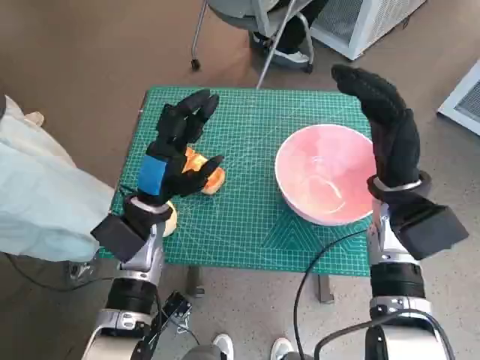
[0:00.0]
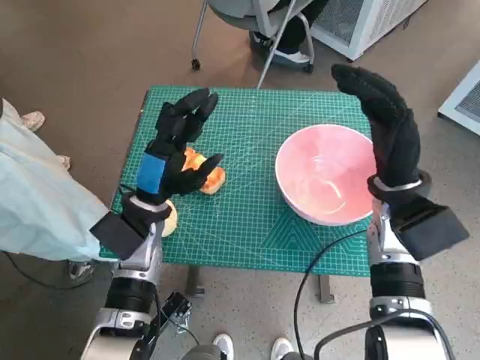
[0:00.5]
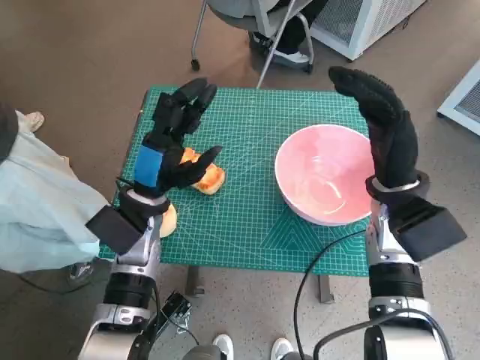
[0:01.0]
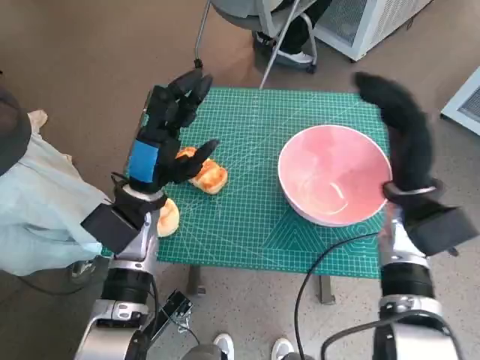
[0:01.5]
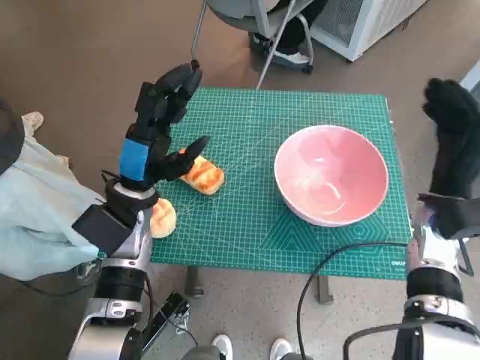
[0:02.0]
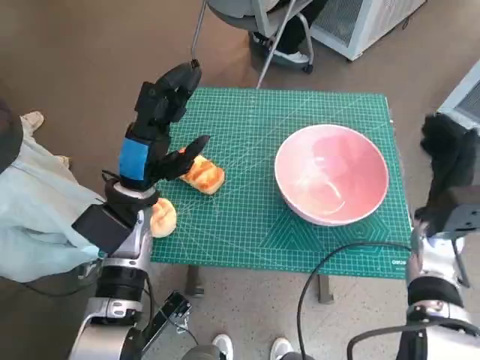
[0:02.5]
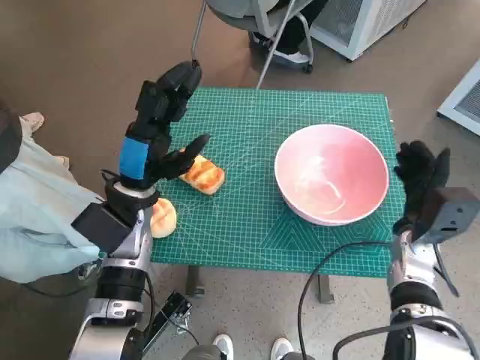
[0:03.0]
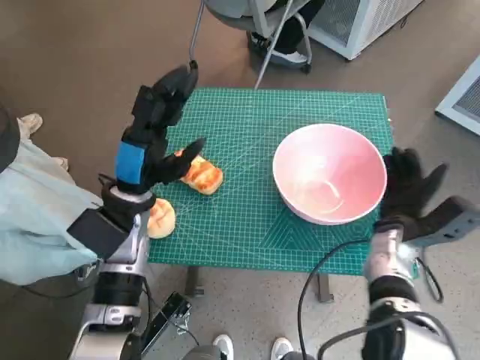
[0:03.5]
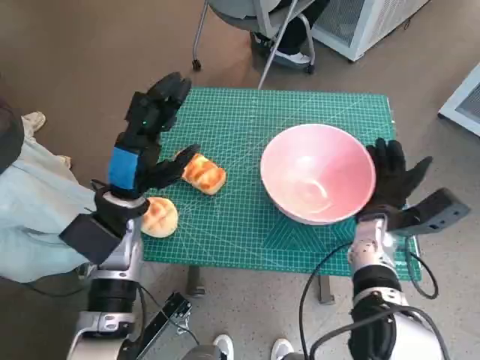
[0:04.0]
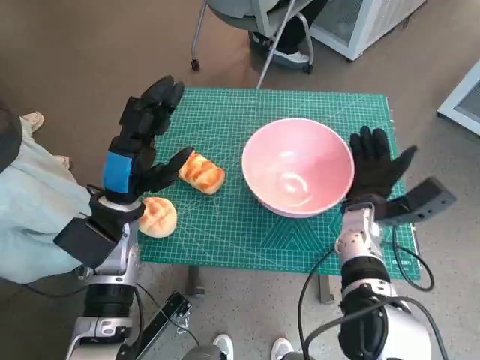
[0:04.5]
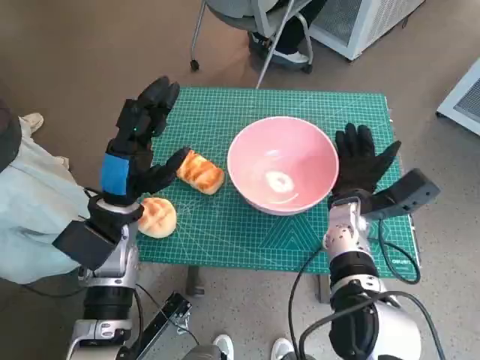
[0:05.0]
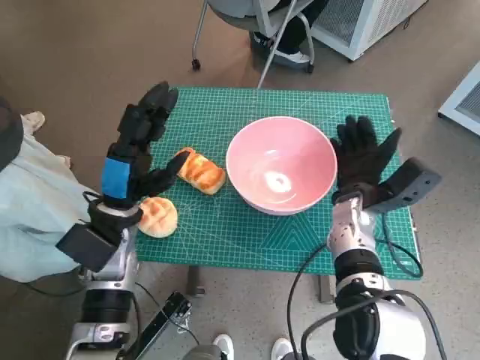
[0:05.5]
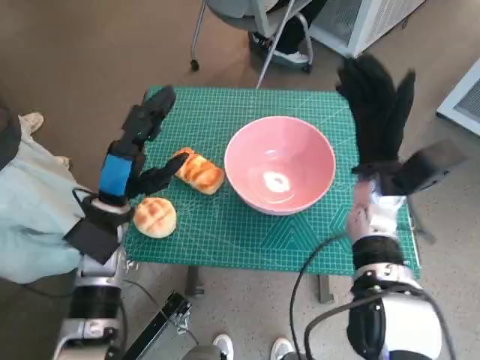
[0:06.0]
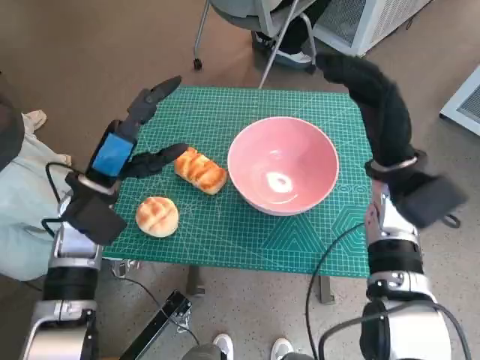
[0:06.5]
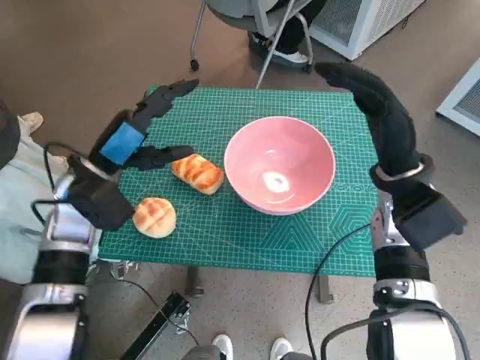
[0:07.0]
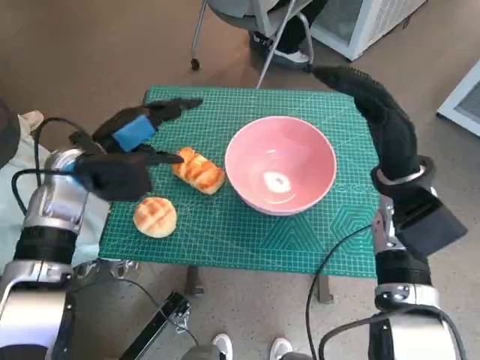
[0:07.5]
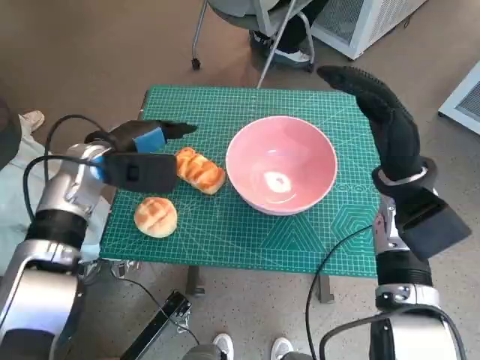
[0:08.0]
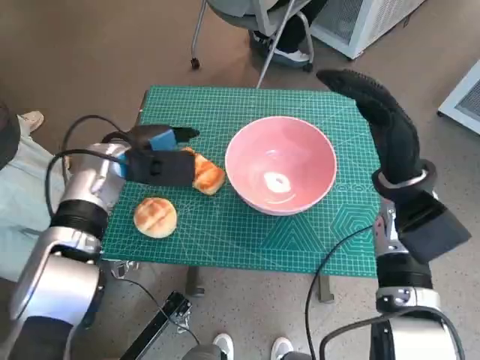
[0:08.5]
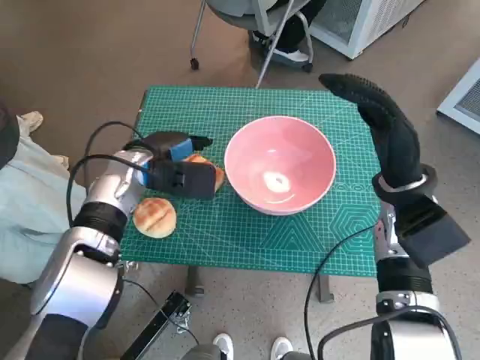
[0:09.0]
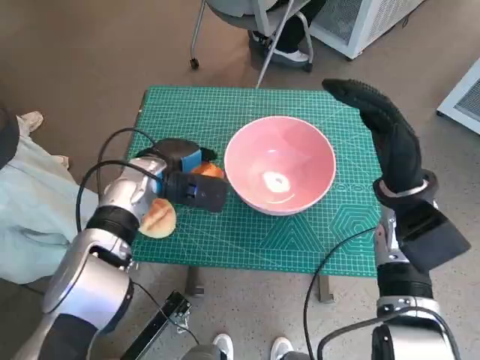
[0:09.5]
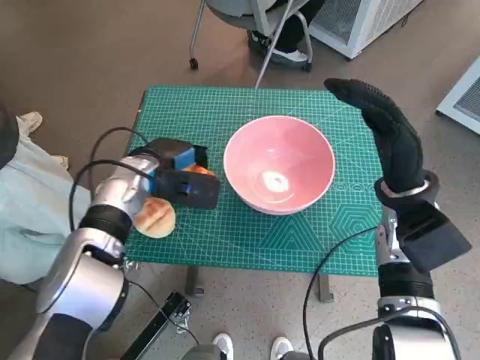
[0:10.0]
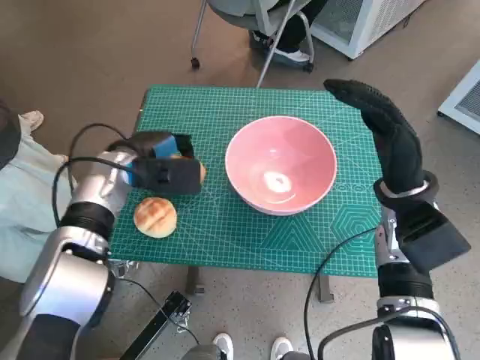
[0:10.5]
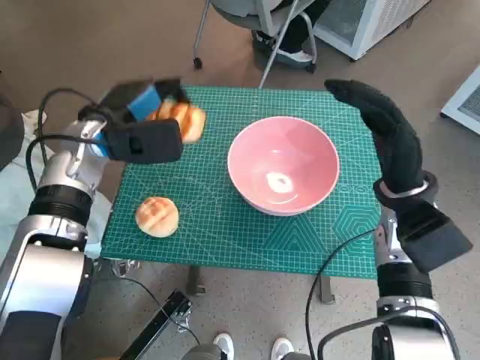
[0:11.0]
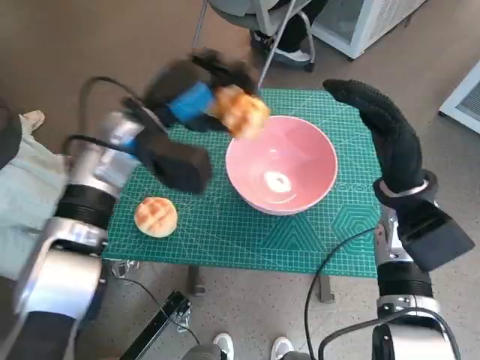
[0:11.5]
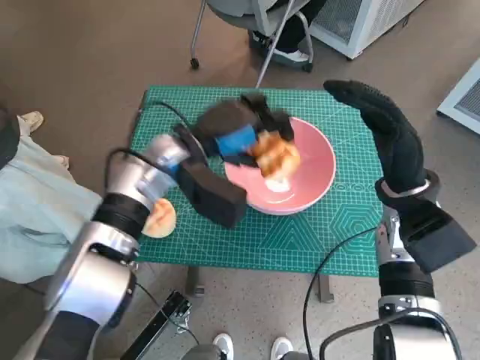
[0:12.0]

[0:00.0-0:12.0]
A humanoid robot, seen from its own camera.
Task of the whole recording: Push the bowl to the center of the table and put the bread into the bowl.
Step, 0:00.0 to 0:05.5: Move the pink bowl to the center of table with right hand.
Step, 0:06.0 to 0:09.5: Grasp the long bread with left hand.
0:02.0 to 0:04.0: The right hand is displaced downward and to the left by approximately 10 cm.
0:04.0 to 0:06.0: The right hand goes about 10 cm upward.
0:06.0 to 0:08.0: The right hand changes place by approximately 5 cm, while the left hand is displaced forward and upward by about 10 cm.
0:08.0 to 0:10.0: The left hand heads to the right, covering some 5 cm.
0:10.0 to 0:12.0: The left hand travels to the right and upward by approximately 10 cm.

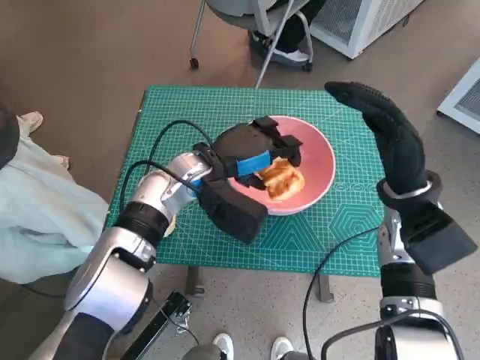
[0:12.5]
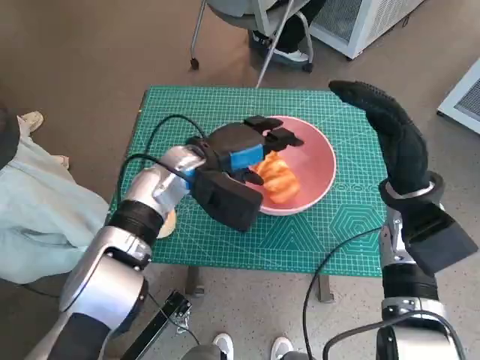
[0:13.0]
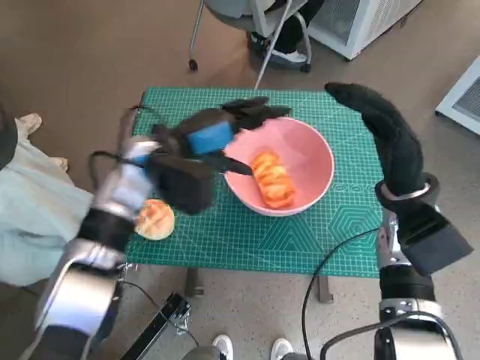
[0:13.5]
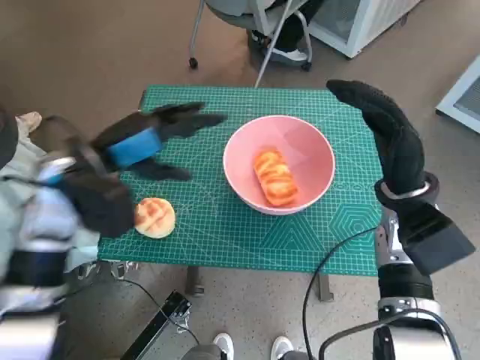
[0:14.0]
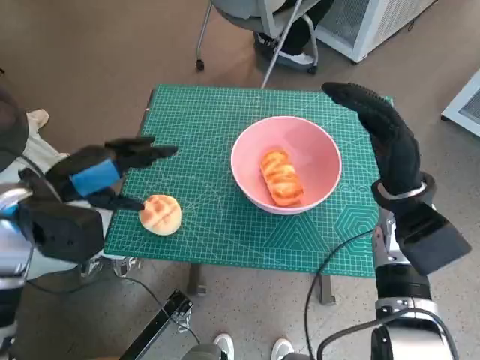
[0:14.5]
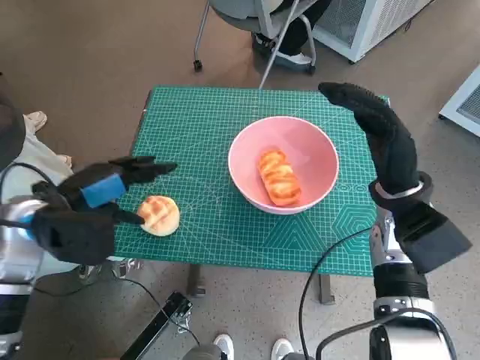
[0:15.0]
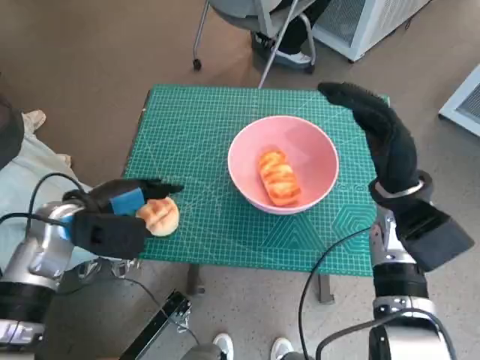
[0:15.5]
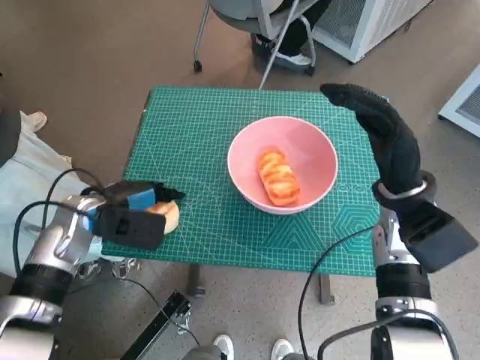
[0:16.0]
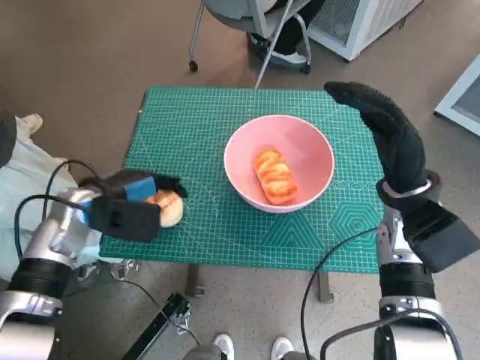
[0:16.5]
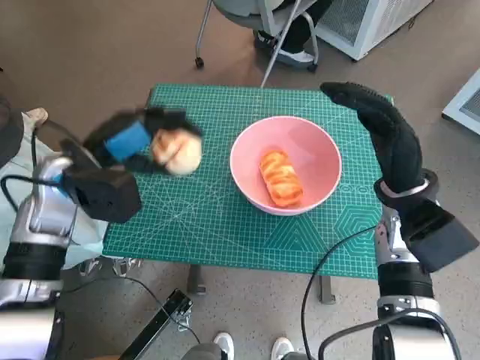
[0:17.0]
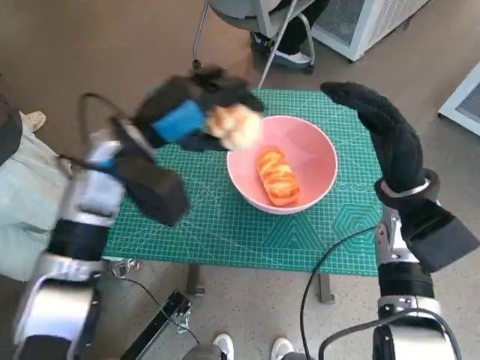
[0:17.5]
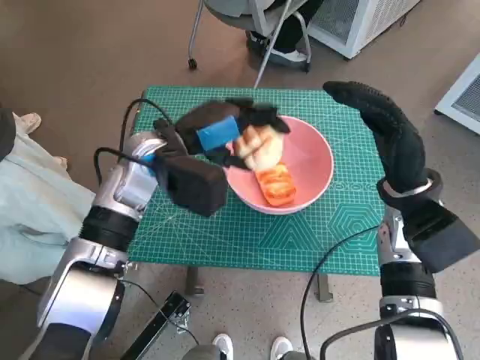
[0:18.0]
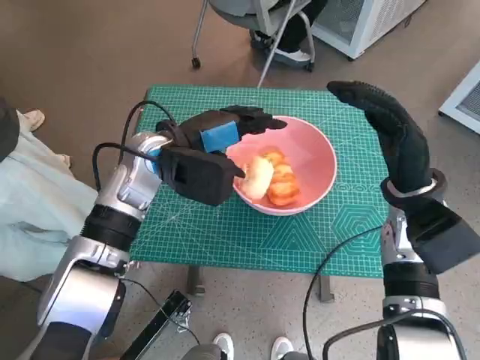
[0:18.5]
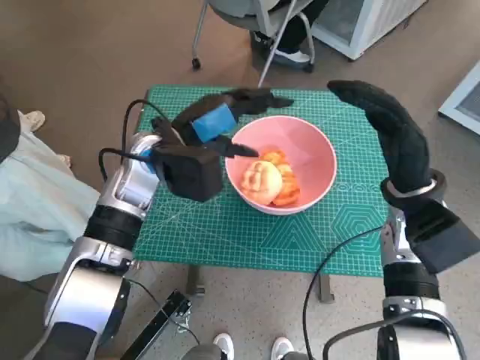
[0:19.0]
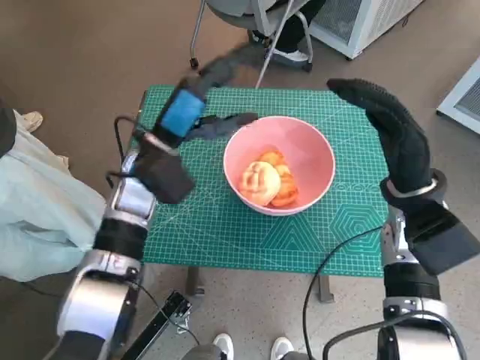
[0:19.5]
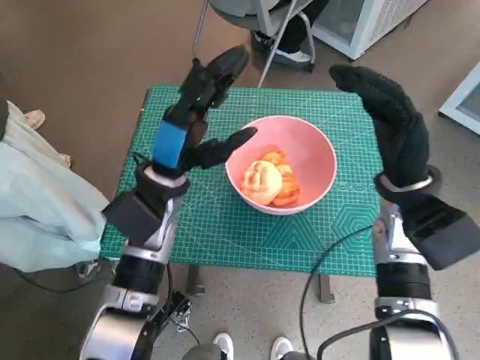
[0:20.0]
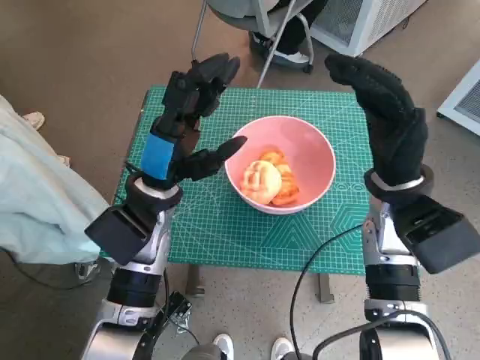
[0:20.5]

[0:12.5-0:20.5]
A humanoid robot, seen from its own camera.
Task of the whole recording: Push the bowl to the center of the table and put the bread into the bowl.
Step, 0:13.0 to 0:16.0: Grasp the round bread with left hand.
Step, 0:16.5 to 0:18.0: Place the round bread in pink bowl with left hand.
0:12.5 to 0:14.5: The left hand travels to the left and backward by approximately 20 cm.
0:14.5 to 0:16.5: The left hand goes some 5 cm downward.
0:16.5 to 0:18.5: The left hand travels to the right and upward by approximately 15 cm.
0:18.5 to 0:20.5: The left hand travels backward by roughly 5 cm.

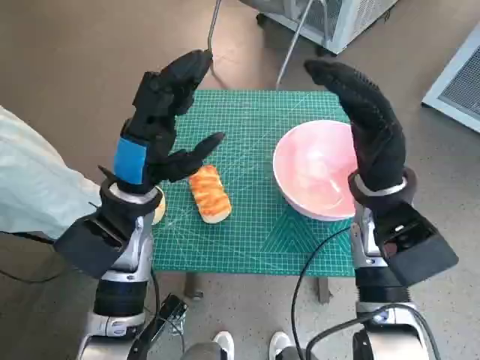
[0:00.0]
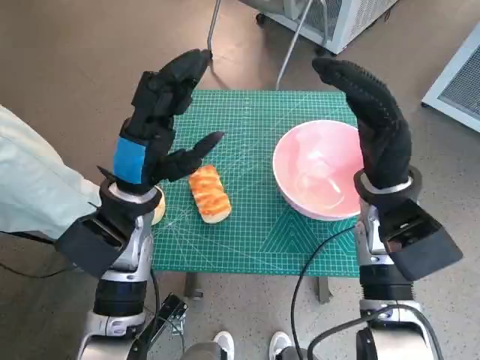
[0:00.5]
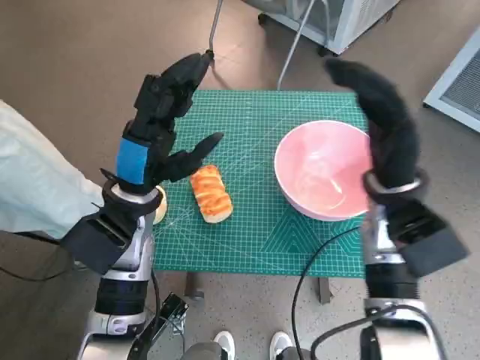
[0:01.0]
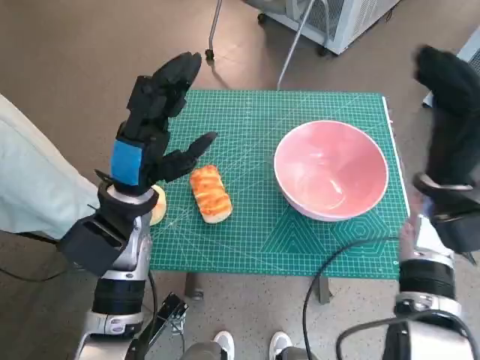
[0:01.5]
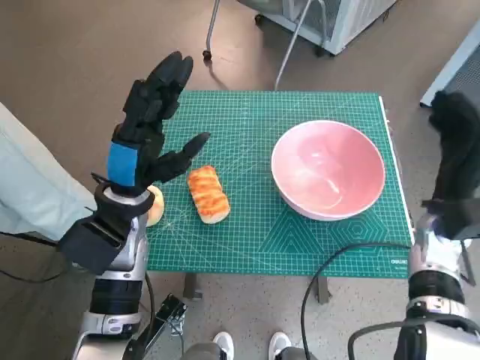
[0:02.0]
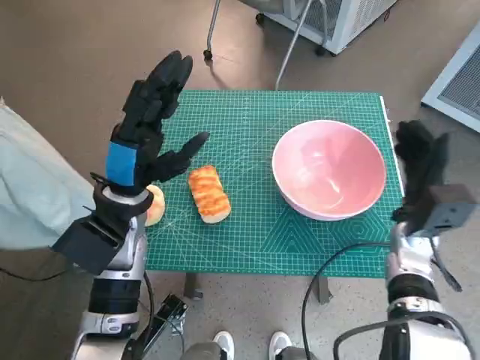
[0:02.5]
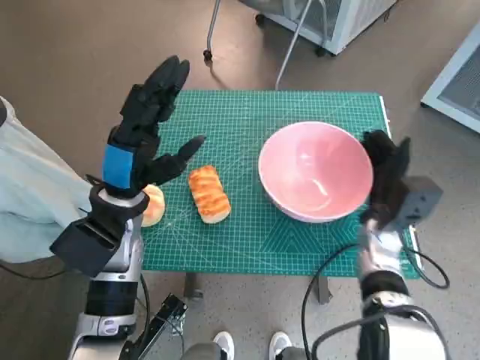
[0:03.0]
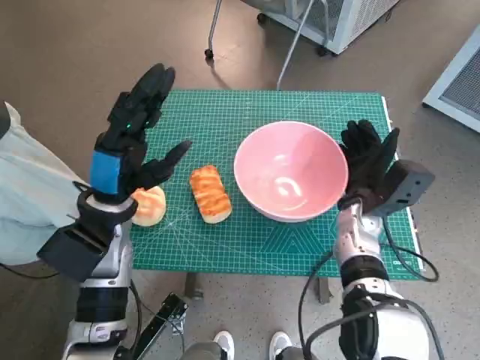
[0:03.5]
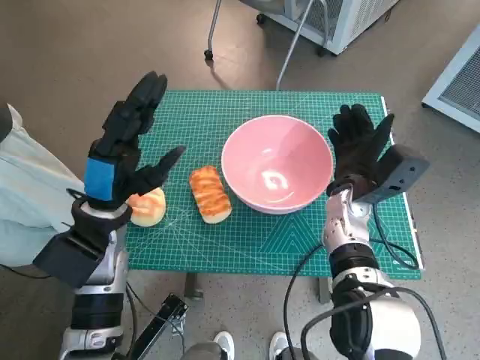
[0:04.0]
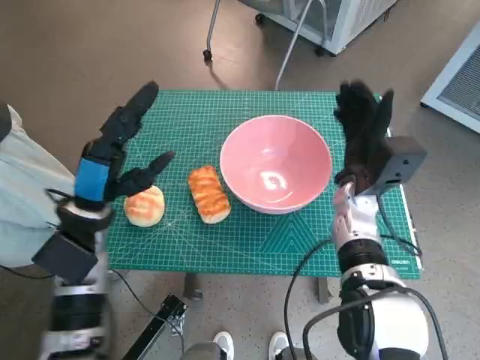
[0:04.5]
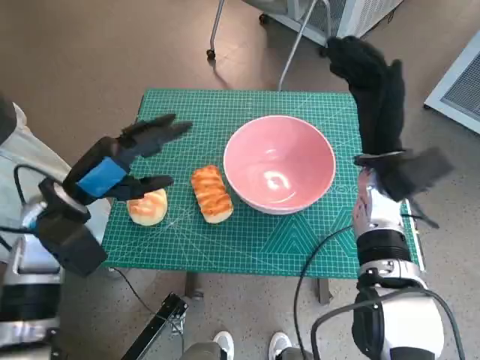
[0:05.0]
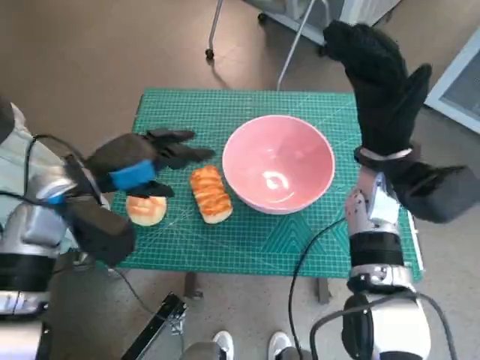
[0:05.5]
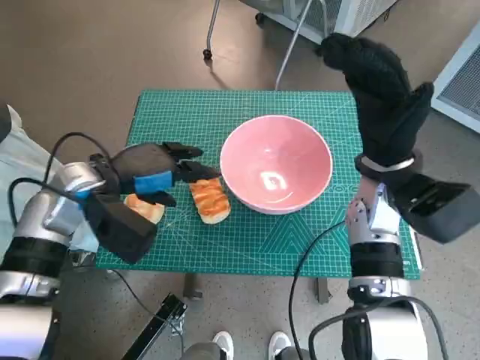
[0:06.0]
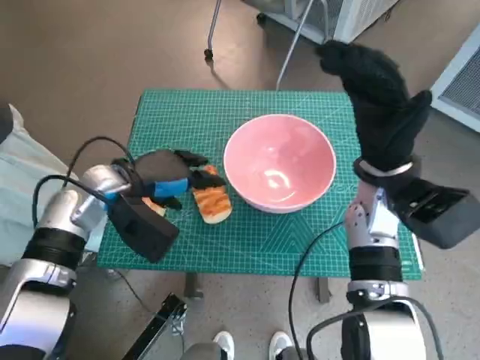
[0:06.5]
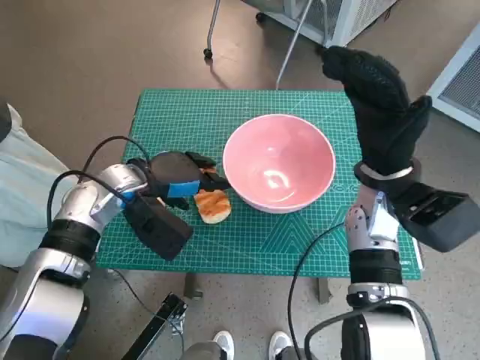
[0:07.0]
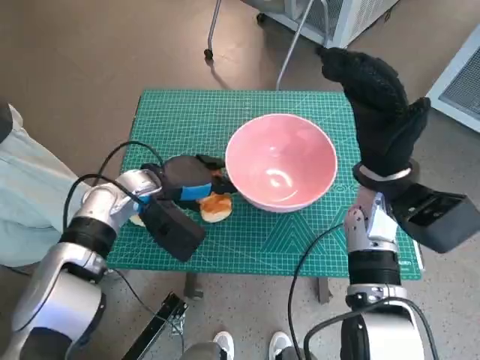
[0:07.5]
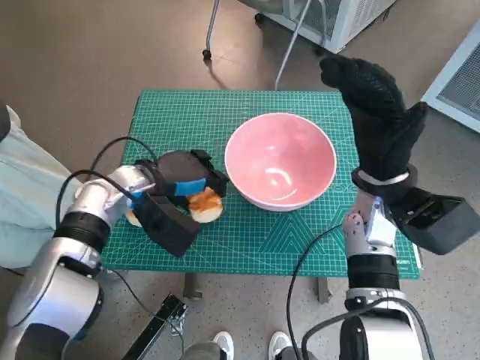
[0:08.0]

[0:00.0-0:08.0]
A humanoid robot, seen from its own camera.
Task of the whole recording: Push the bowl to the center of the table and put the bread into the bowl.
Step, 0:00.0 to 0:04.0: Move the pink bowl to the center of table with right hand.
Step, 0:04.5 to 0:07.5: Grasp the long bread with left hand.
0:02.0 to 0:04.0: The right hand heads to the left, covering roughly 10 cm.
0:04.0 to 0:06.0: The left hand changes place by roughly 5 cm. The right hand moves upward, roughly 10 cm.
0:06.0 to 0:08.0: The left hand moves some 5 cm.
